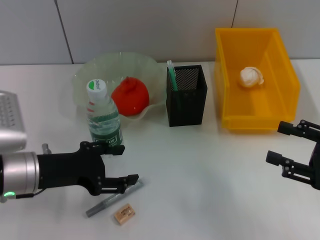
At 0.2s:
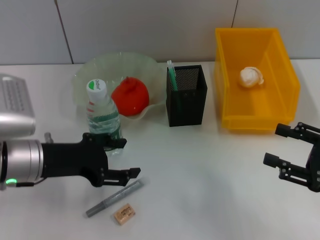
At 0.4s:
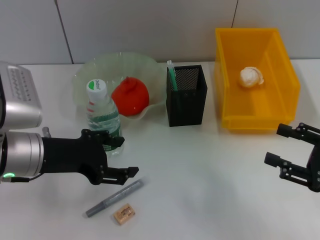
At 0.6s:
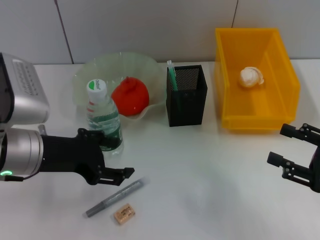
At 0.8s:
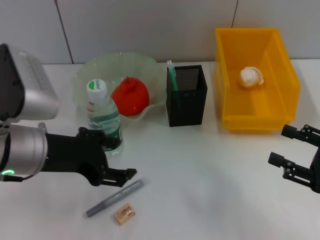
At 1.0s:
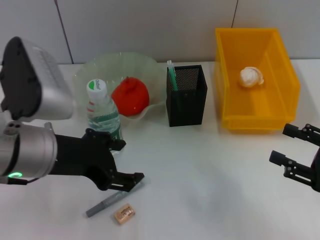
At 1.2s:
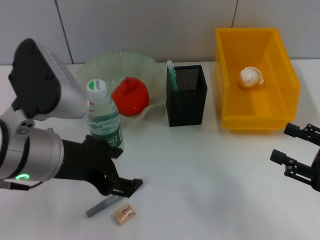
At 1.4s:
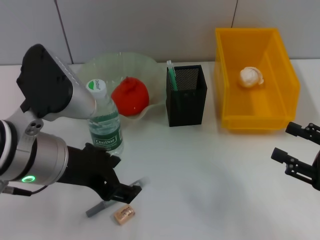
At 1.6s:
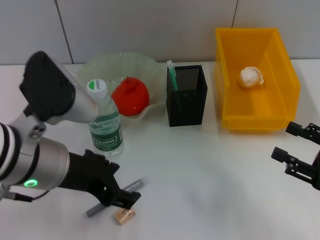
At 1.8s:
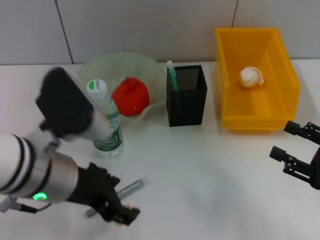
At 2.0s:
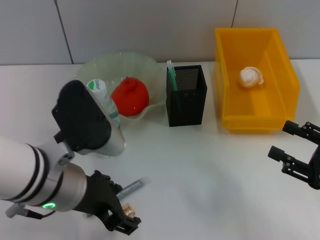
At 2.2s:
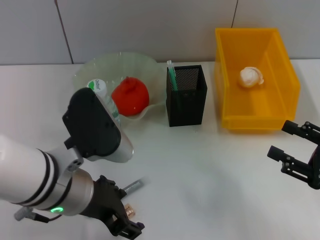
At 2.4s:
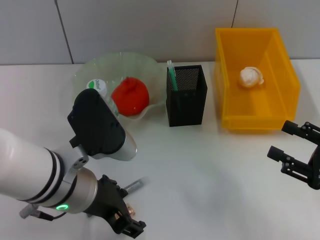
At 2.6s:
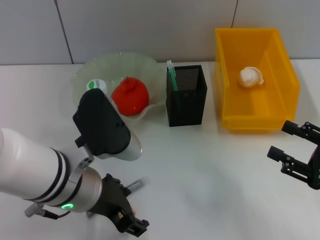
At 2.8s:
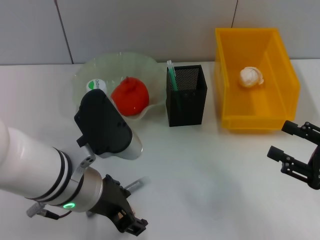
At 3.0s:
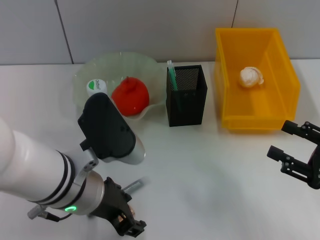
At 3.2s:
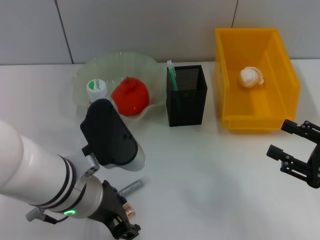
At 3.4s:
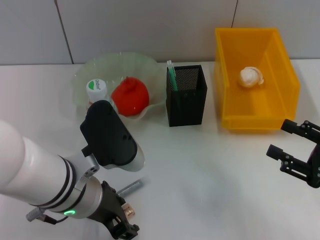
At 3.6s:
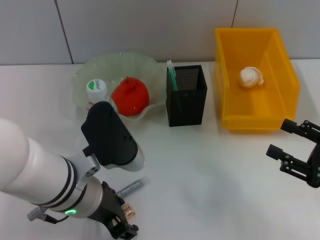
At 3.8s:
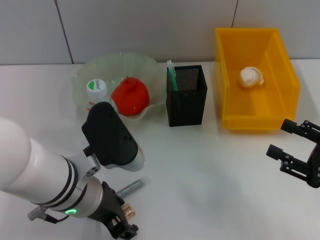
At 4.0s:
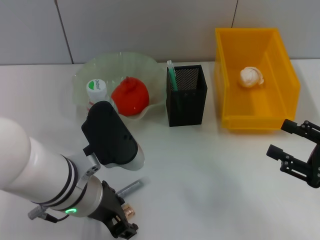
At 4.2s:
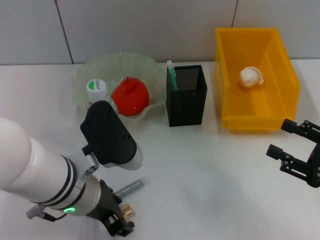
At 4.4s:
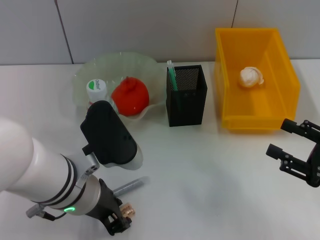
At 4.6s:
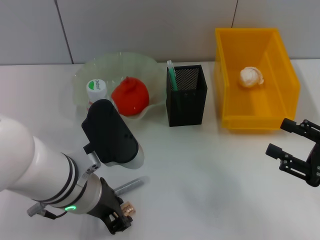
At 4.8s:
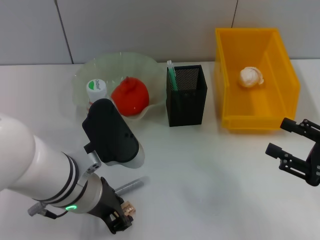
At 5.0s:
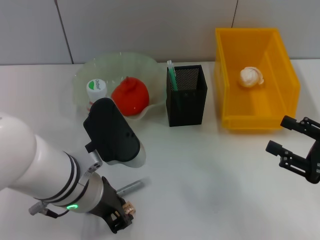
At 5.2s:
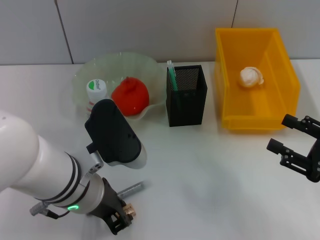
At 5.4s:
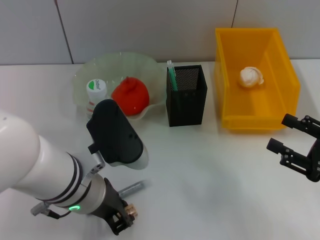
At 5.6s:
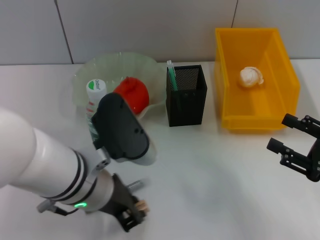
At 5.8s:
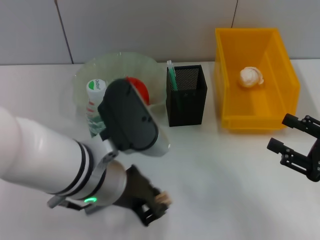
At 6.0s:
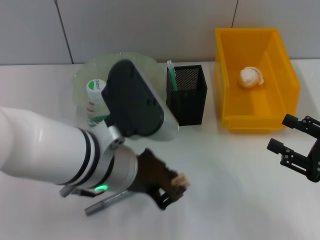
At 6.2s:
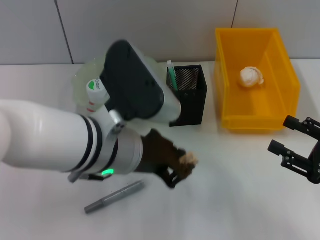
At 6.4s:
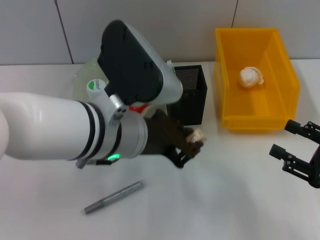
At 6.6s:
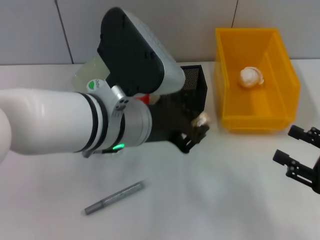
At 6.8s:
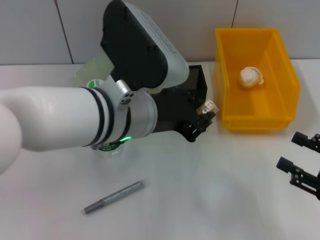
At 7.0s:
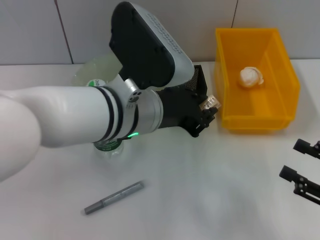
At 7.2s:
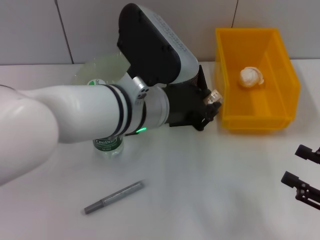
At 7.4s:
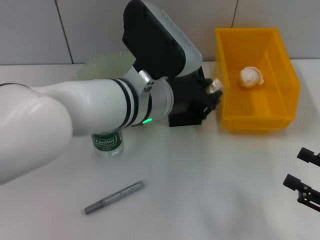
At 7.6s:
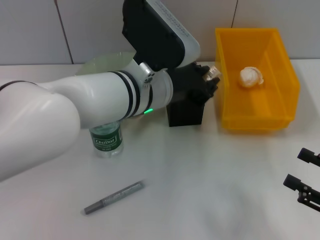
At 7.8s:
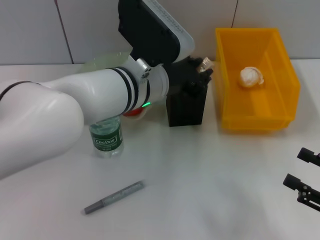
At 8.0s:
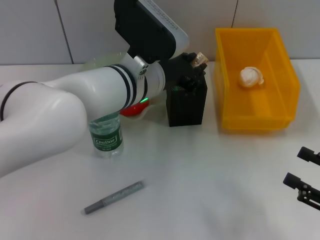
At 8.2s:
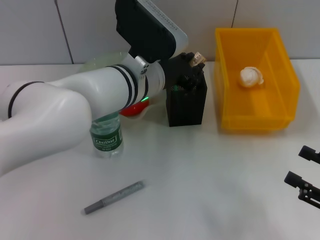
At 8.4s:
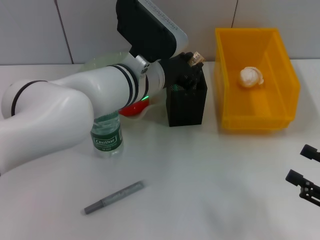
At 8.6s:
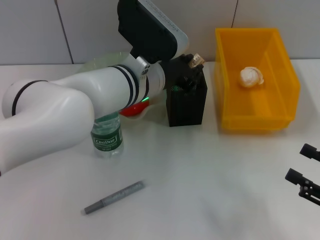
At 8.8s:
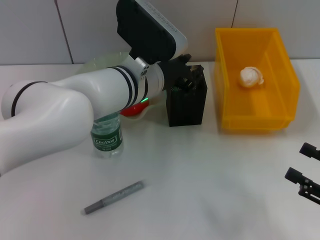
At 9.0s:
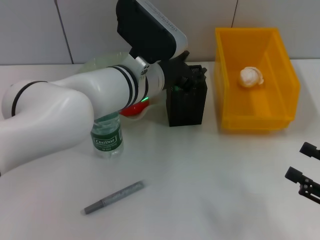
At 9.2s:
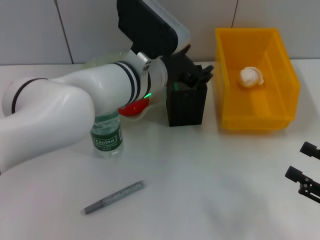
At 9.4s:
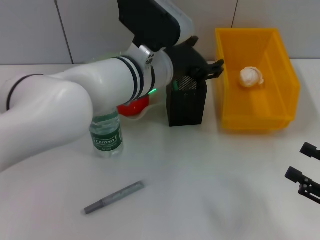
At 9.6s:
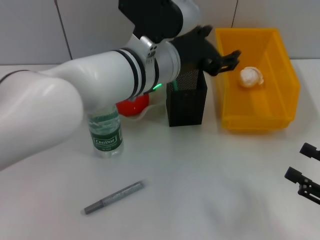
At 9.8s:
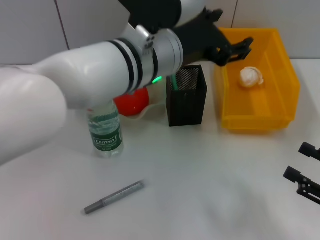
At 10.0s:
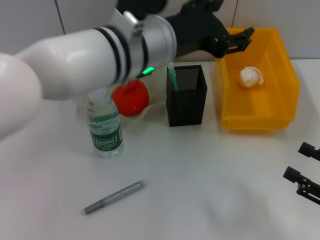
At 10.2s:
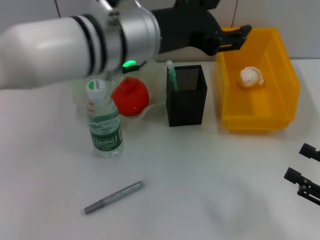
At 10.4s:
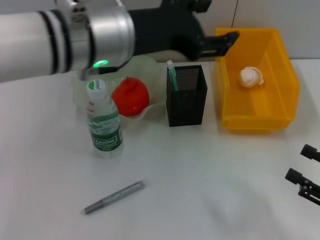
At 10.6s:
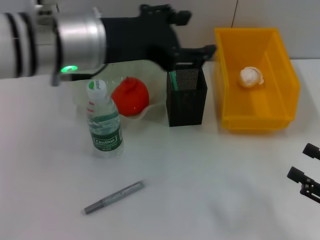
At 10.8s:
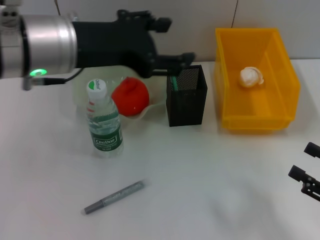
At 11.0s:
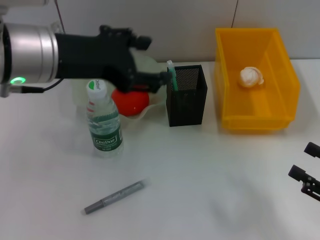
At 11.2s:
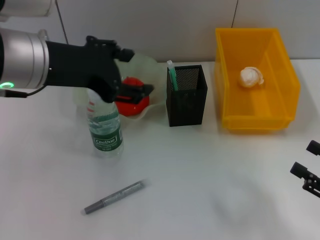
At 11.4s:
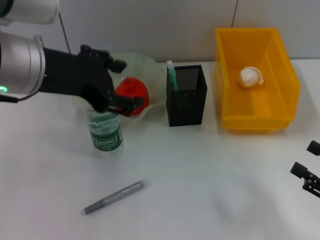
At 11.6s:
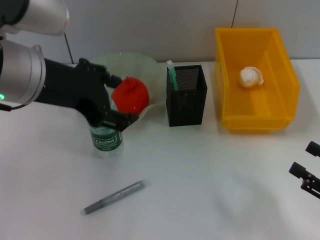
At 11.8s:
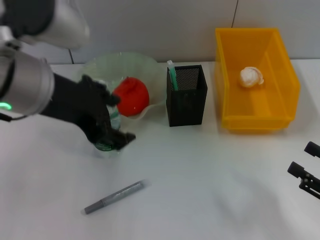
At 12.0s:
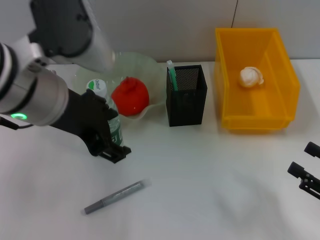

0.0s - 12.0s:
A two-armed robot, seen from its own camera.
Step, 0.0s - 5.0s: Grab the eraser with the left hand.
Step, 5.4s - 9.0s: Place the eraser into the pen holder with the left hand.
0.0s - 1.6s: The left gripper goes about 10 cm upward and to the right.
1.6s - 3.0s: The left gripper changes place by approximately 5 cm.
3.0s - 4.4s: There are only small adjustments of the grippers.
4.4s - 6.0s: The left gripper is displaced upward by about 5 cm, and closes.
6.0s - 7.6s: The right gripper shifts by roughly 5 cm; the left gripper goes some 10 cm forward.
7.6s - 9.0s: The grippers stay close to where they were, moving slightly.
9.0s - 10.4s: The left gripper is displaced upward and backward by approximately 10 cm, and opens up.
10.4s - 12.0s: The left gripper travels to the left by some 5 cm.

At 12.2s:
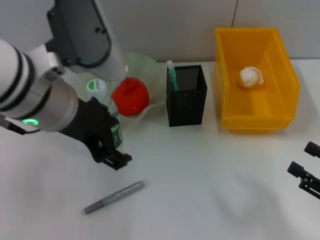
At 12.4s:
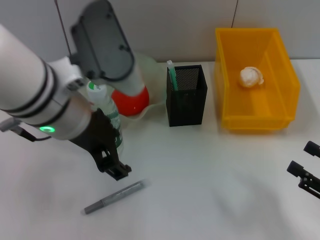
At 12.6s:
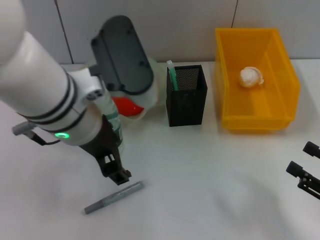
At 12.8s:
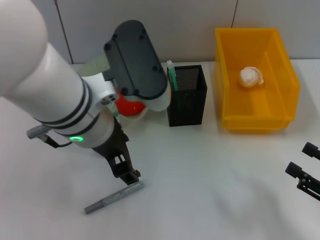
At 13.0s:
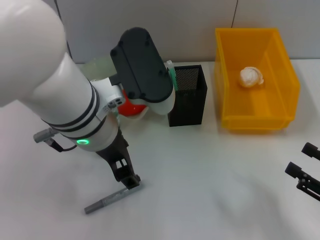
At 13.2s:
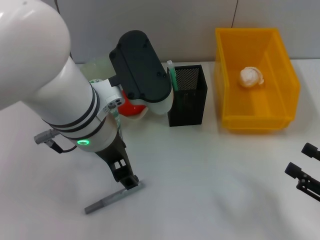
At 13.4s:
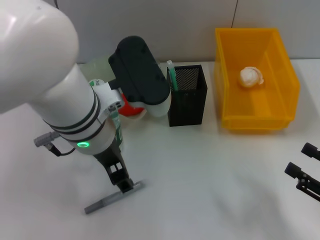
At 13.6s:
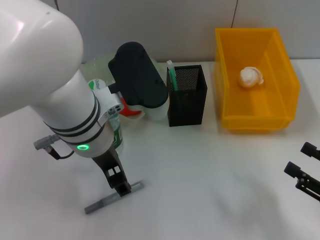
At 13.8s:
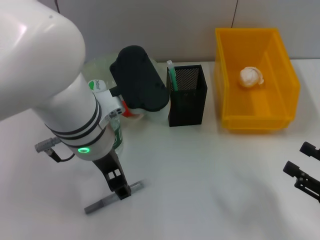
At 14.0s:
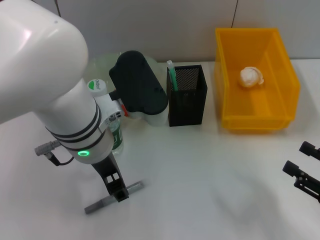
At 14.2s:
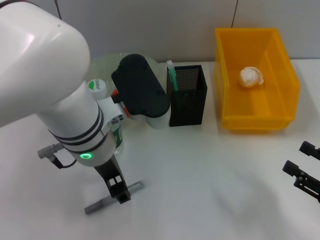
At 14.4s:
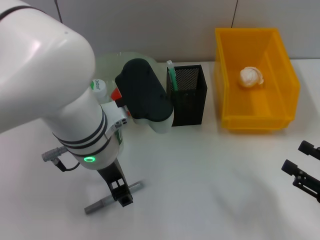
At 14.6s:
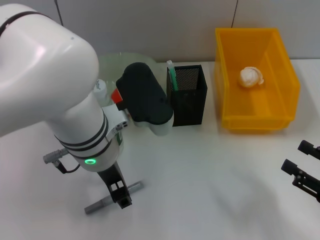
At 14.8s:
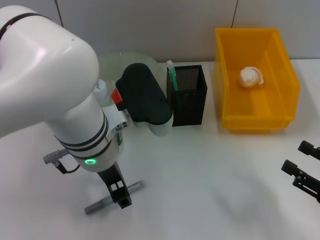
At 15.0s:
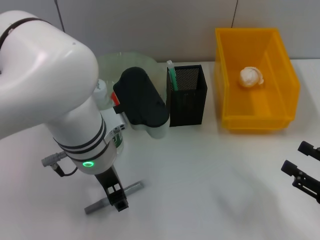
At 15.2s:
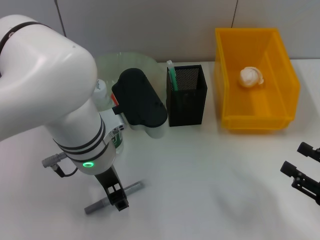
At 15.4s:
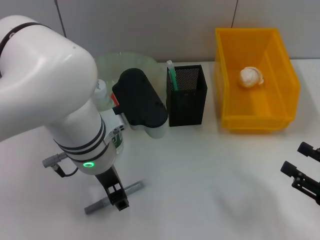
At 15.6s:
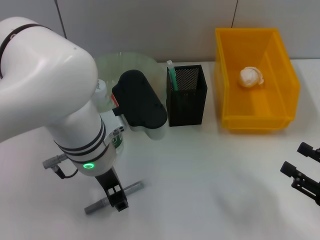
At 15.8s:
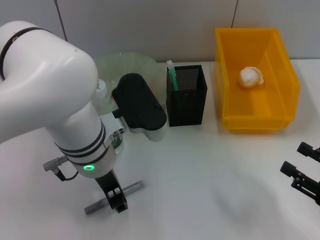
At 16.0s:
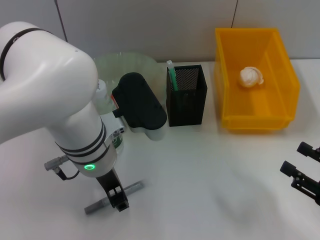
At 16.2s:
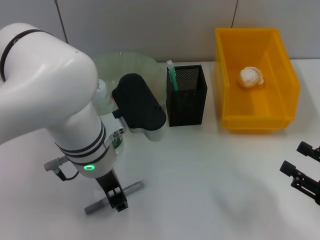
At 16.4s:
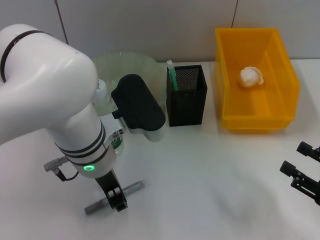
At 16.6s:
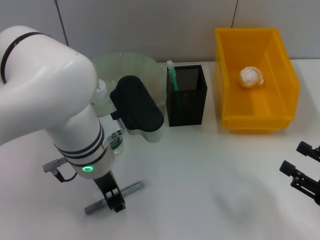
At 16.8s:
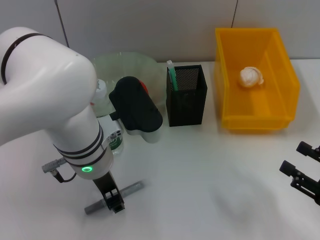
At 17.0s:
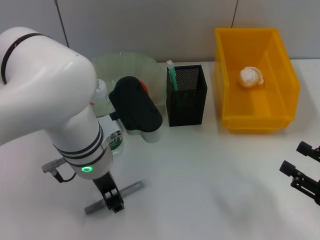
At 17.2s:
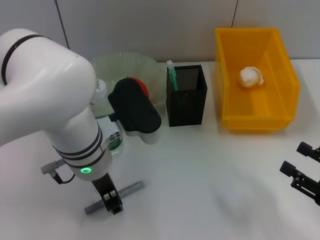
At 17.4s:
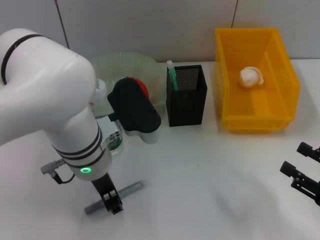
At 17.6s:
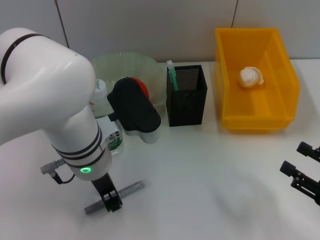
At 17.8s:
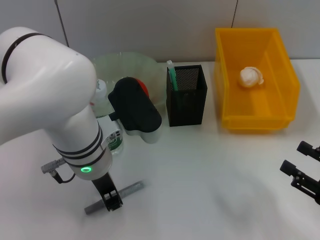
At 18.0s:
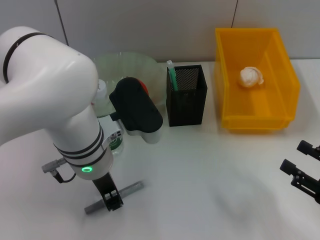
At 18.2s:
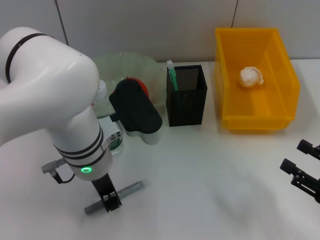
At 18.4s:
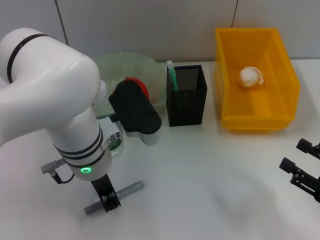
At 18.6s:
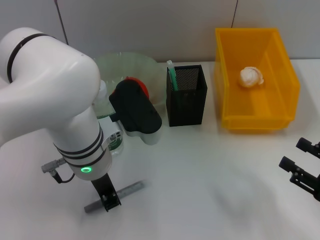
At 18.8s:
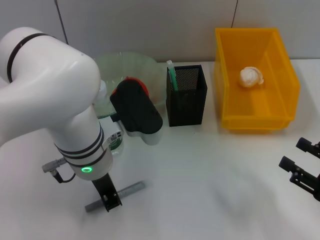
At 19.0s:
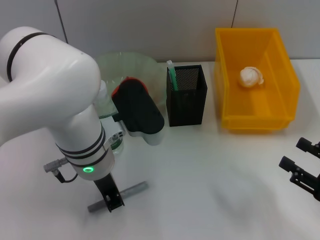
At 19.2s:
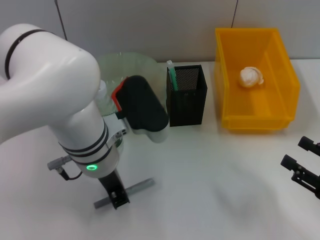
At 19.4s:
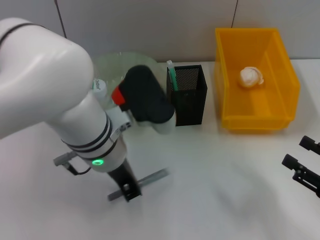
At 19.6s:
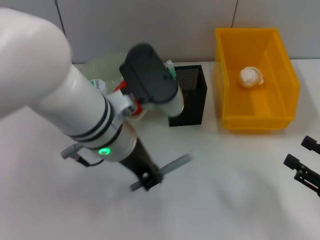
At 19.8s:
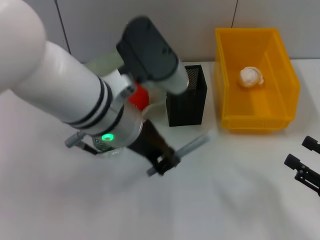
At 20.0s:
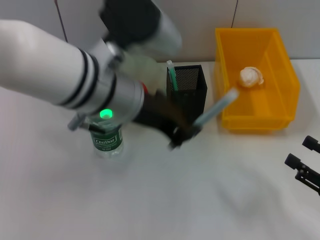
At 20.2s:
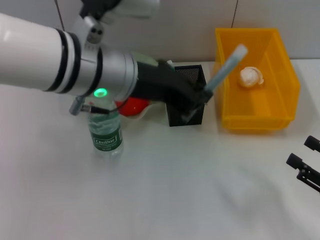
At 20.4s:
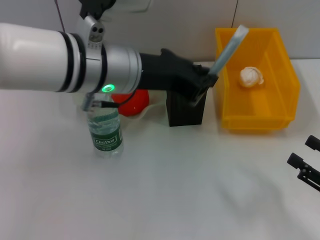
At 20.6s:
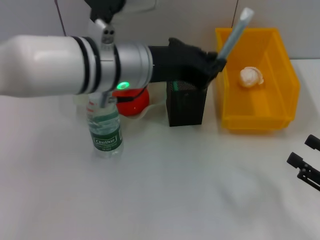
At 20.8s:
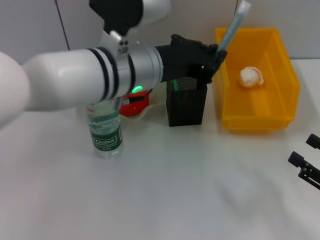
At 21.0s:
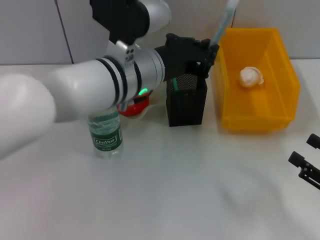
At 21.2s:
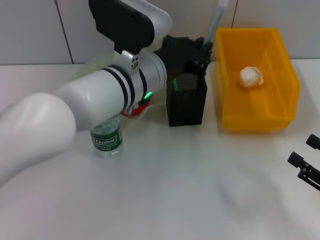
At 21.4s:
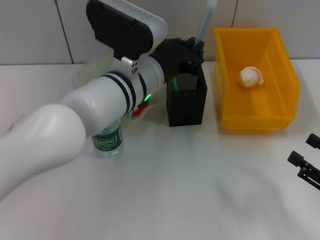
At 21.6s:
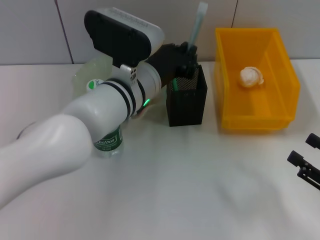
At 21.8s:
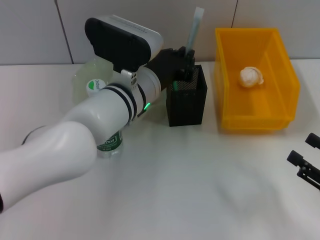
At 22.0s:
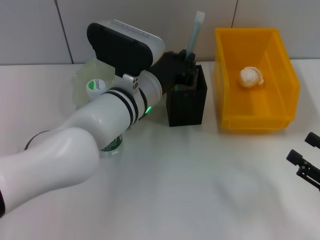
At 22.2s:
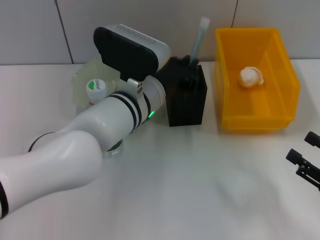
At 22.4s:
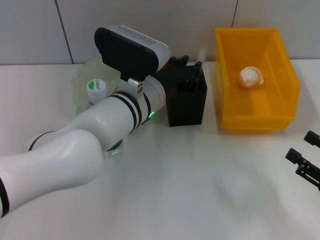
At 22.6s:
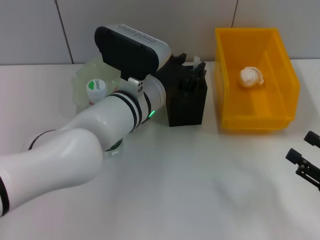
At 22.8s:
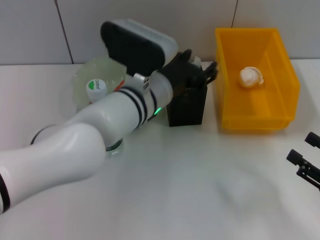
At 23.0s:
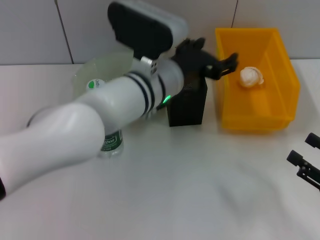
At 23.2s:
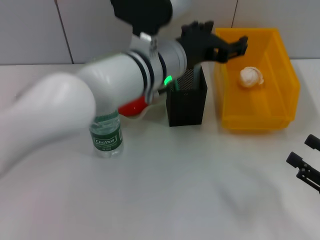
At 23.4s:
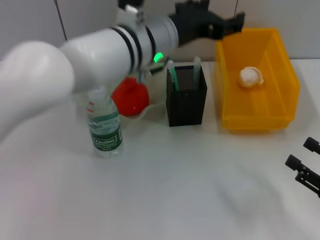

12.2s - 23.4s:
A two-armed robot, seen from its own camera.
Step, 12.2s - 18.8s: Grab the gray glue with the left hand.
Step, 19.0s - 22.4s: Place the gray glue into the pen holder with the left hand.
12.2s - 13.8s: The left gripper travels downward by approximately 5 cm.
13.8s - 17.0s: The grippers move only a little.
17.0s - 18.6s: Both grippers stay about where they are.
18.6s - 20.2s: The left gripper shifts roughly 10 cm upward.
20.2s - 21.8s: The left gripper heads downward and forward, covering approximately 15 cm.
21.8s - 23.4s: The left gripper moves upward, about 10 cm, and opens its fingers.
